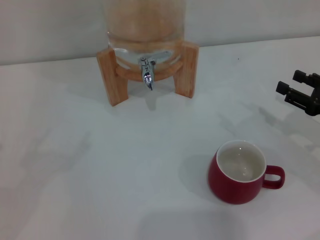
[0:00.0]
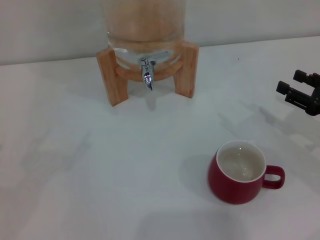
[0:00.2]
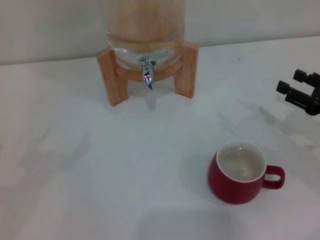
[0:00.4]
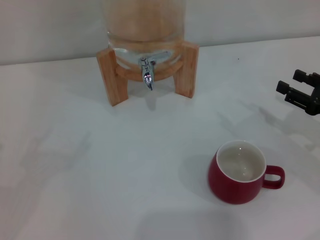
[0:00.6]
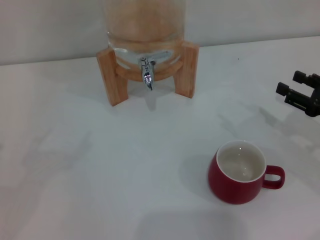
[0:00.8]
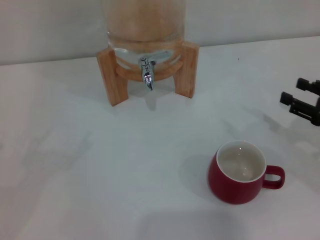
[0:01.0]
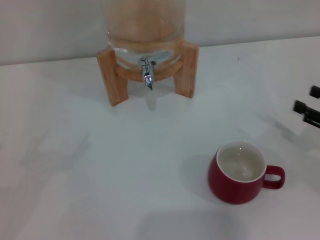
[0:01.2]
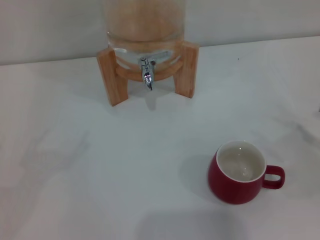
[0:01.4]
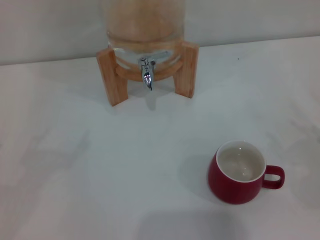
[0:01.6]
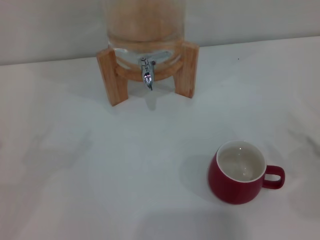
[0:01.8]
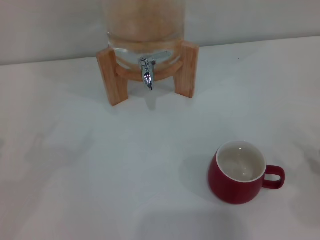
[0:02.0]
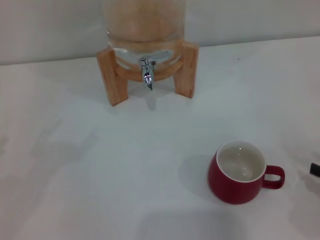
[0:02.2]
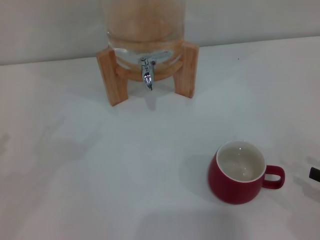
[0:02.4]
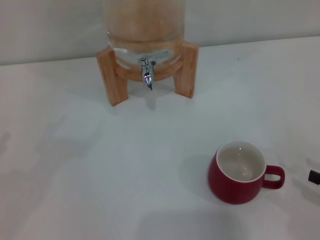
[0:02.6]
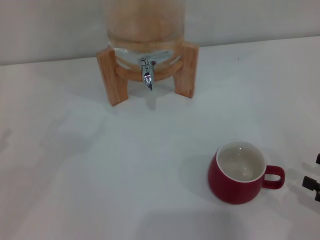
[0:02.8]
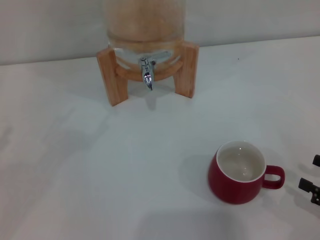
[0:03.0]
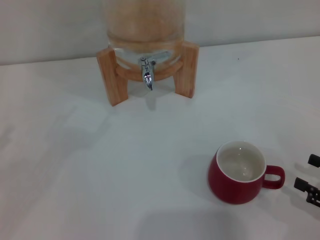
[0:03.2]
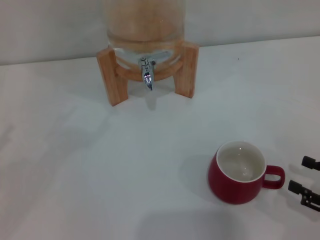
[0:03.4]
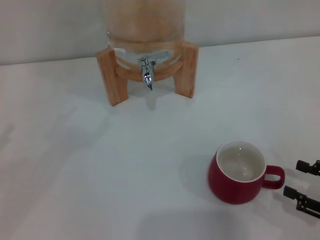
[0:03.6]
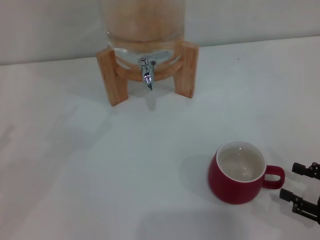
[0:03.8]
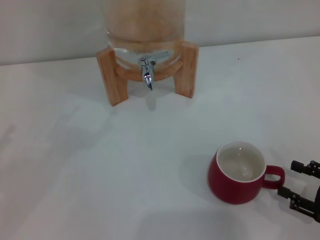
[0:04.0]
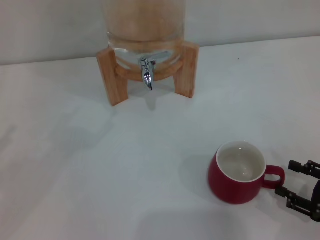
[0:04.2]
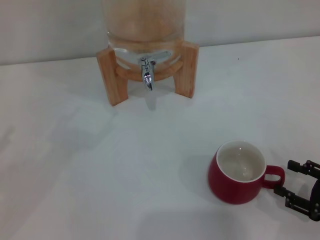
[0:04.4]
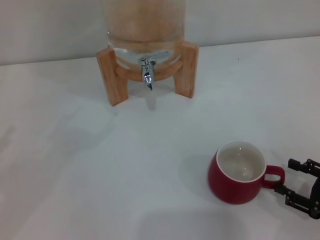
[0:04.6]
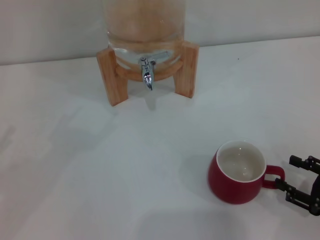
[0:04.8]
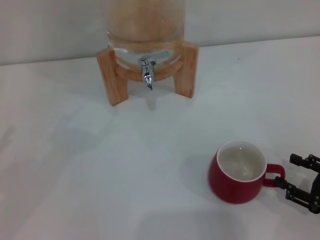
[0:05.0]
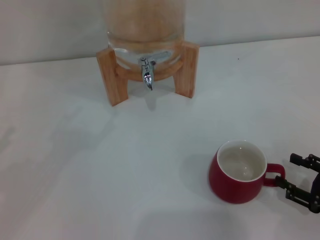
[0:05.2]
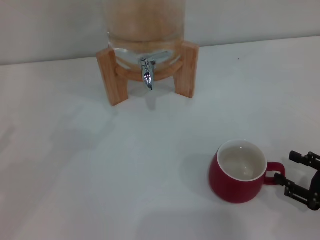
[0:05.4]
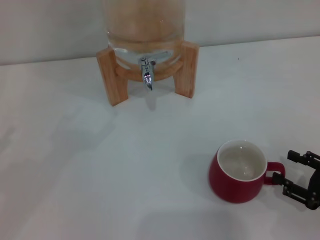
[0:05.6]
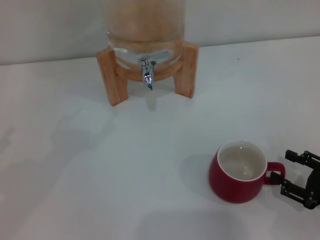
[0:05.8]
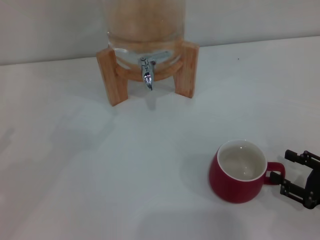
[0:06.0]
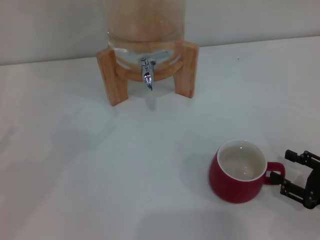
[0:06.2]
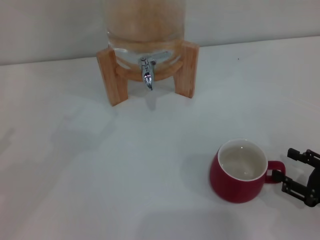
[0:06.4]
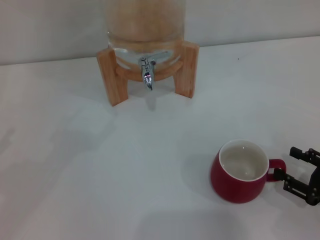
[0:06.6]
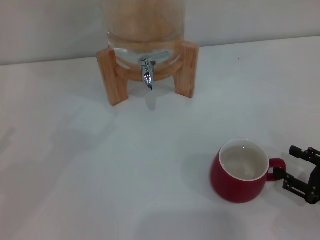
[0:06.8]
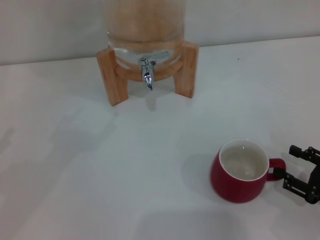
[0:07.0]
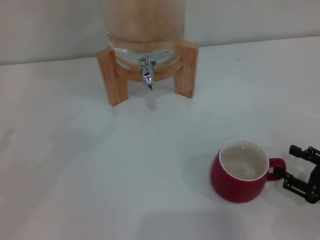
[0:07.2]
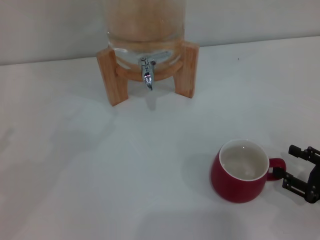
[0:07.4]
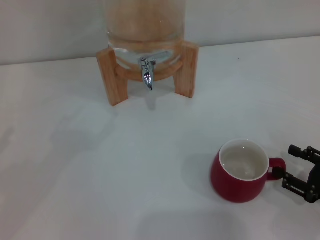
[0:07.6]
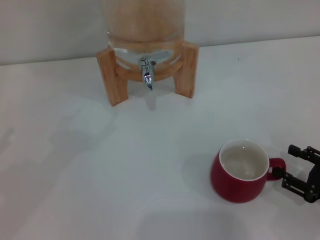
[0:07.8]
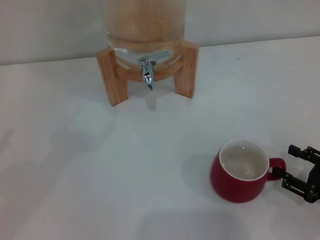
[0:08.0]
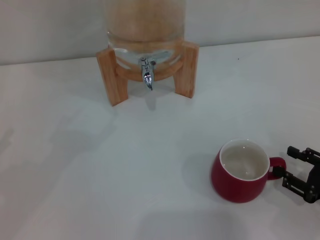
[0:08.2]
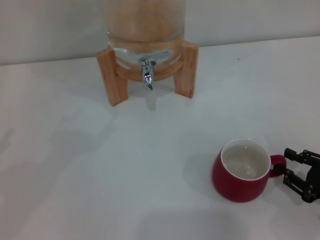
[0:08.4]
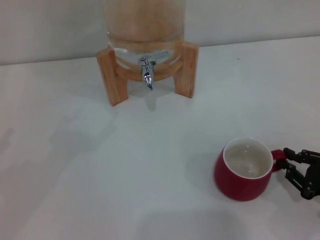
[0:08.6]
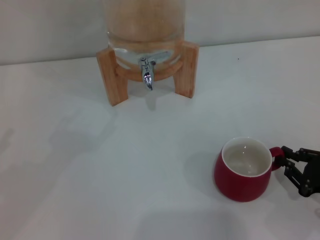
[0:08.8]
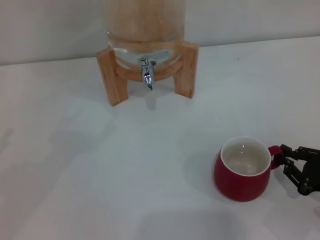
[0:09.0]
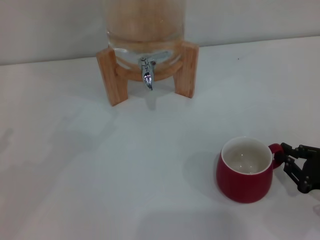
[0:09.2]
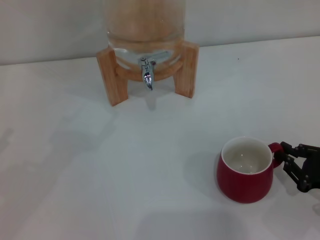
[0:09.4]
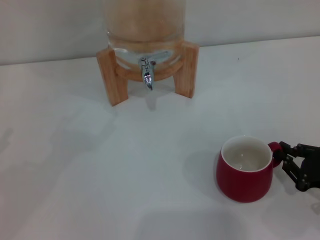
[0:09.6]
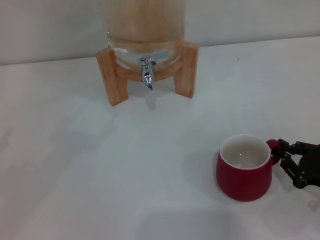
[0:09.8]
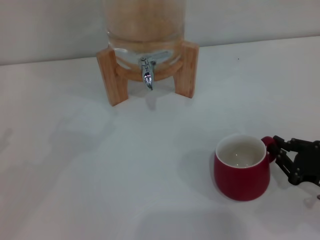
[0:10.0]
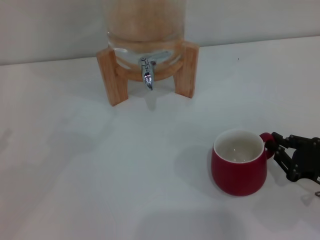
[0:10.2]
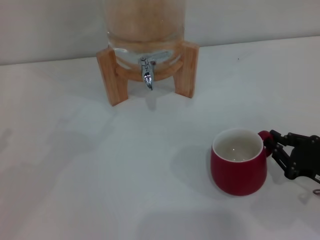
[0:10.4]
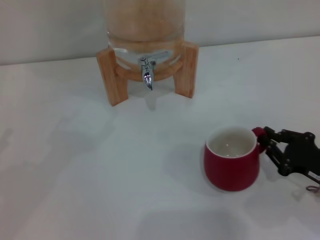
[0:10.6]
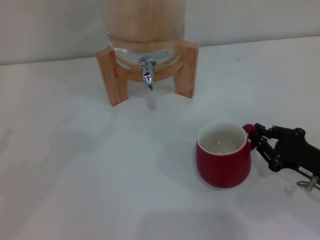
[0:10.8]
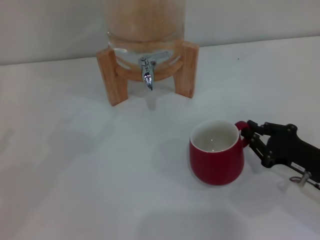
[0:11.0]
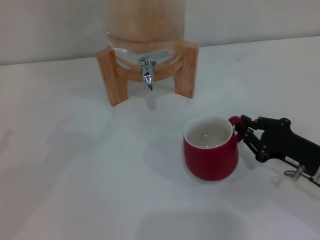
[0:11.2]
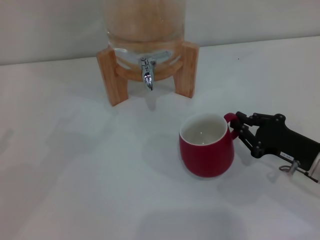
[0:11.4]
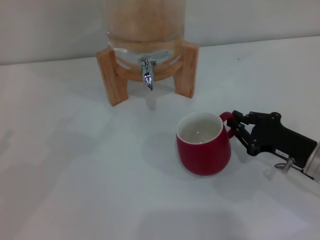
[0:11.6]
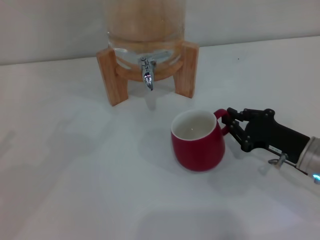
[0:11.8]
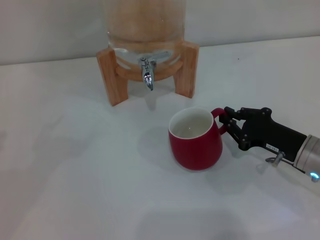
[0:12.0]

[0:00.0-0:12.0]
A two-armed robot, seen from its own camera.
Task of the whole recording: the right gripper pick up the red cup and place it horizontally under the faucet, the left gripper turn on the faucet to fill the cup, and then turn off the faucet.
0:00.0 to 0:01.6: The right gripper is displaced backward and to the right by roughly 10 cm.
0:01.6 to 0:03.0: The right gripper moves some 10 cm.
0:03.0 to 0:04.4: The grippers stay close to where they were, moving slightly.
0:04.4 to 0:06.0: Both grippers stay about where they are.
0:06.0 to 0:07.6: Neither gripper changes place.
0:07.6 to 0:09.0: The right gripper closes up.
0:09.0 to 0:10.4: The grippers move only a little.
0:10.4 to 0:12.0: The right gripper shifts roughly 10 cm forward and to the left.

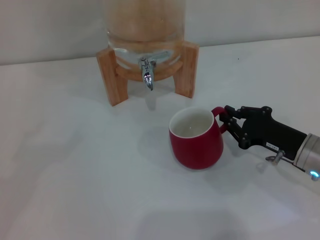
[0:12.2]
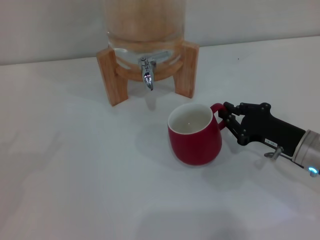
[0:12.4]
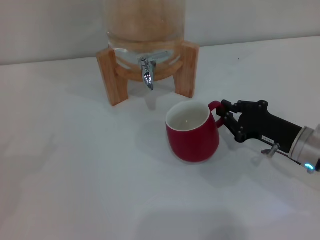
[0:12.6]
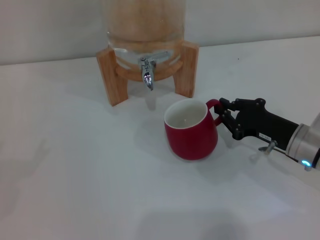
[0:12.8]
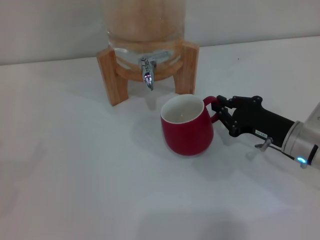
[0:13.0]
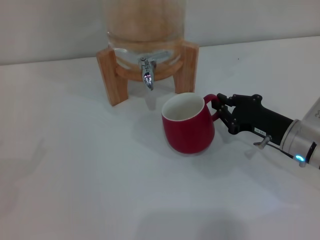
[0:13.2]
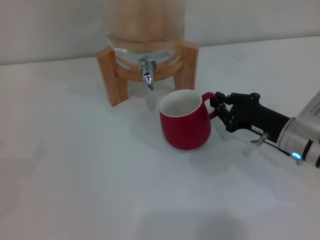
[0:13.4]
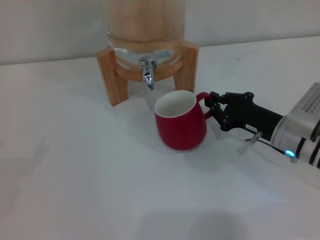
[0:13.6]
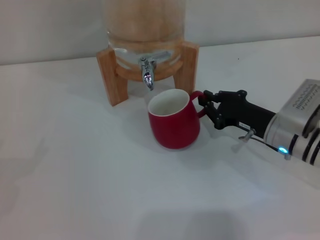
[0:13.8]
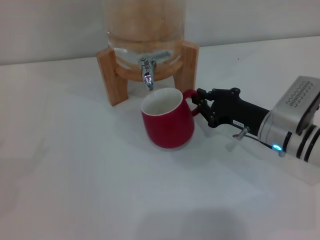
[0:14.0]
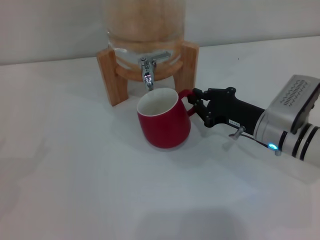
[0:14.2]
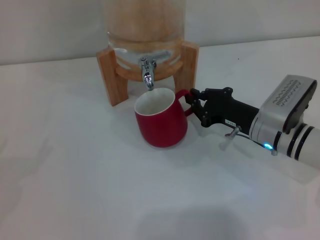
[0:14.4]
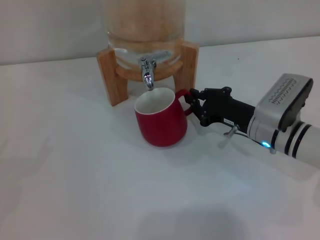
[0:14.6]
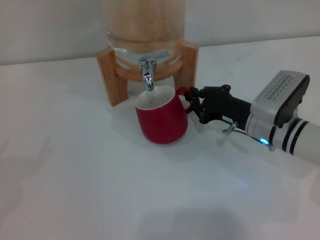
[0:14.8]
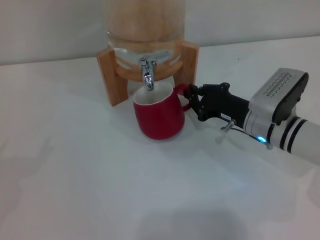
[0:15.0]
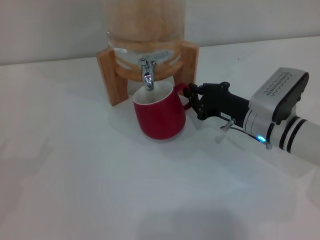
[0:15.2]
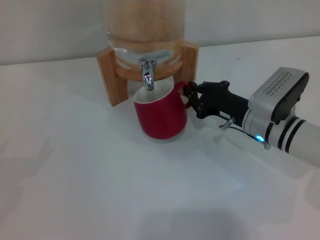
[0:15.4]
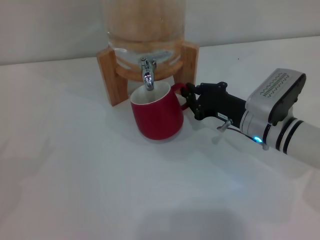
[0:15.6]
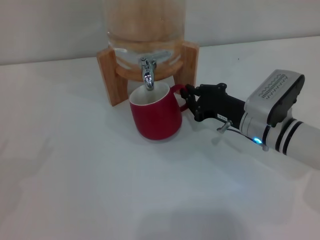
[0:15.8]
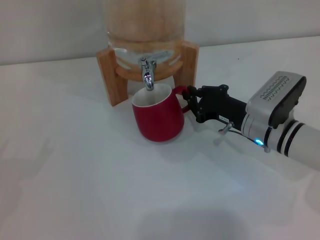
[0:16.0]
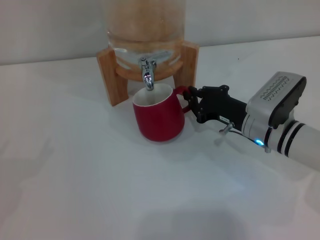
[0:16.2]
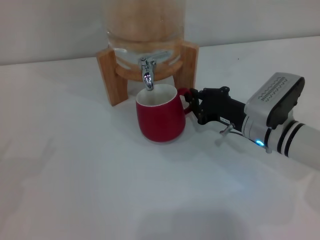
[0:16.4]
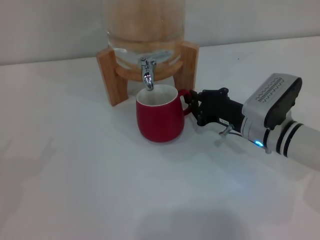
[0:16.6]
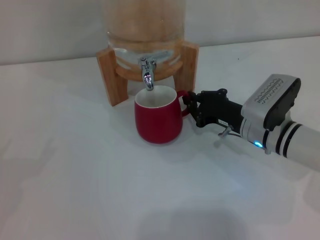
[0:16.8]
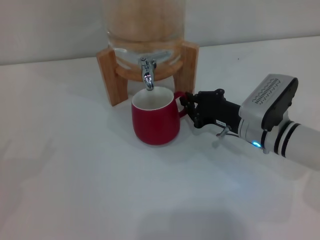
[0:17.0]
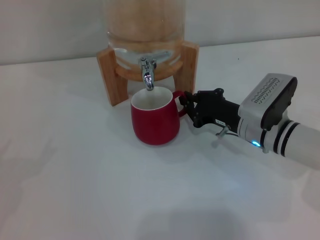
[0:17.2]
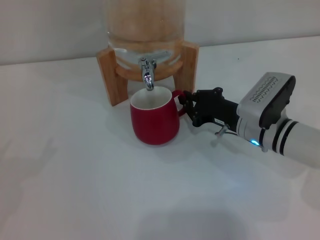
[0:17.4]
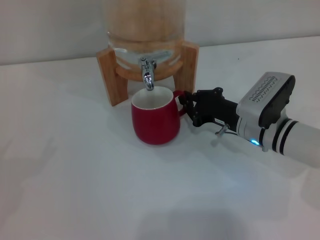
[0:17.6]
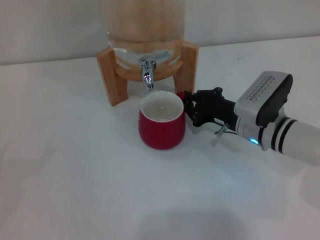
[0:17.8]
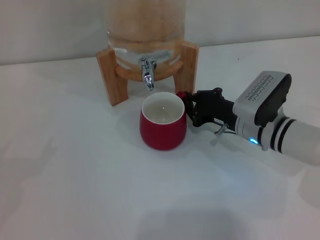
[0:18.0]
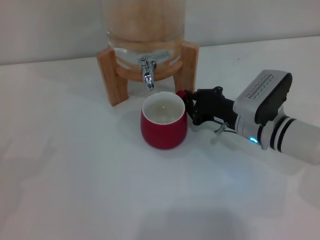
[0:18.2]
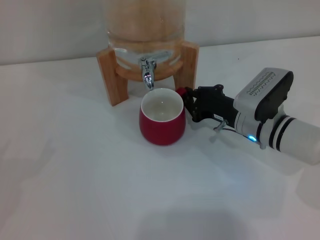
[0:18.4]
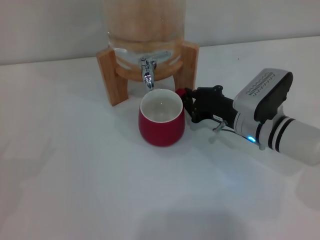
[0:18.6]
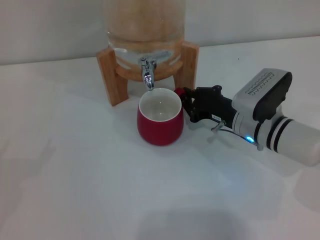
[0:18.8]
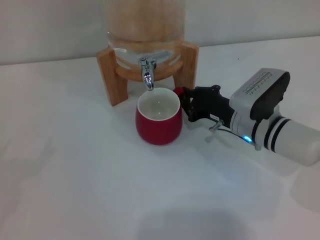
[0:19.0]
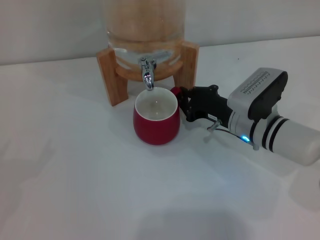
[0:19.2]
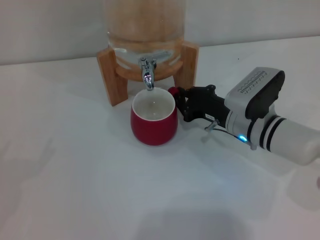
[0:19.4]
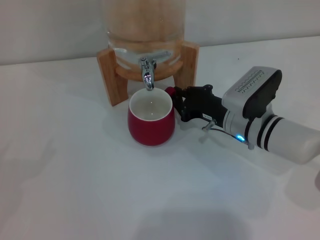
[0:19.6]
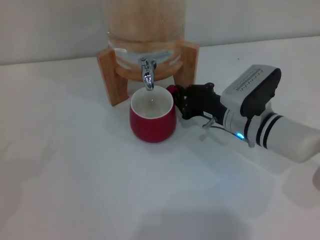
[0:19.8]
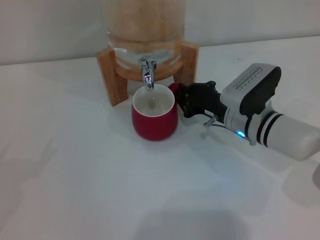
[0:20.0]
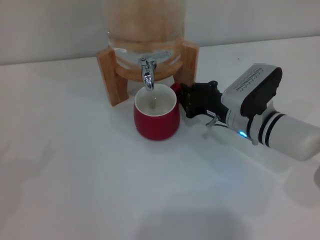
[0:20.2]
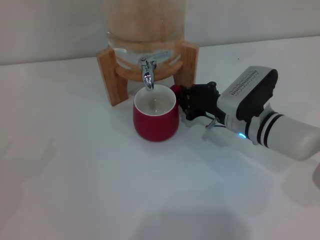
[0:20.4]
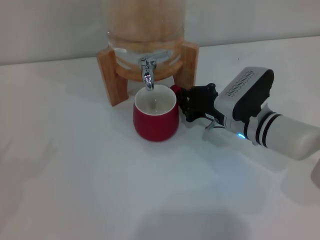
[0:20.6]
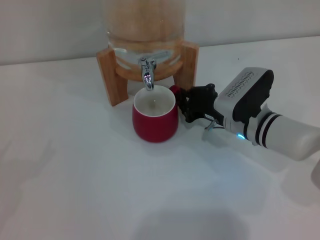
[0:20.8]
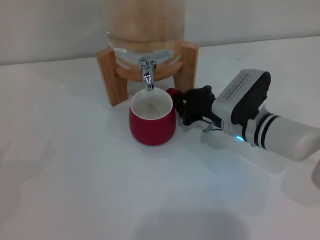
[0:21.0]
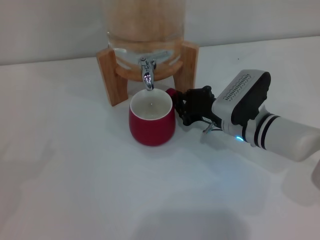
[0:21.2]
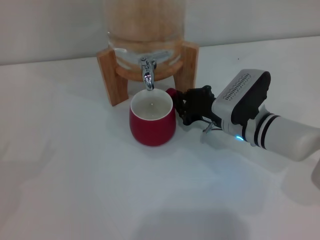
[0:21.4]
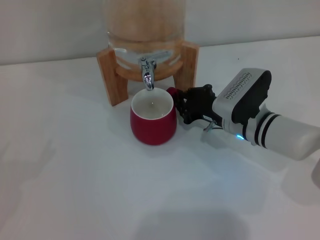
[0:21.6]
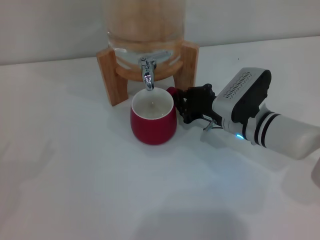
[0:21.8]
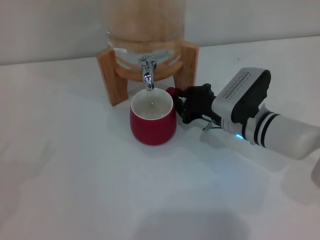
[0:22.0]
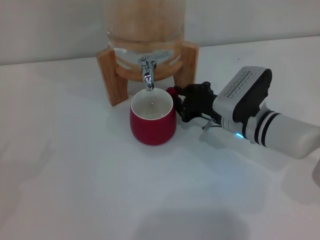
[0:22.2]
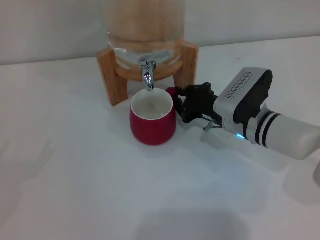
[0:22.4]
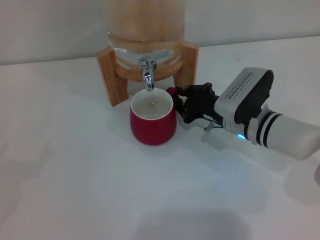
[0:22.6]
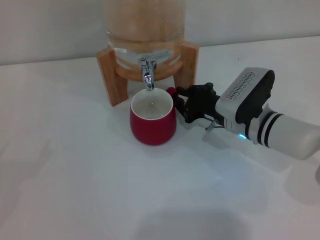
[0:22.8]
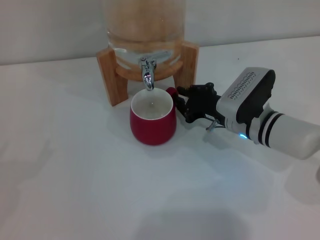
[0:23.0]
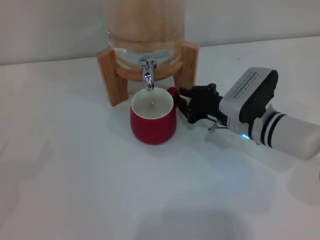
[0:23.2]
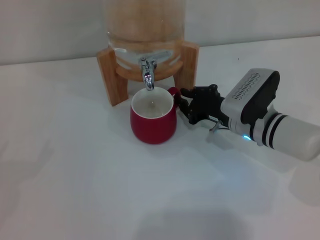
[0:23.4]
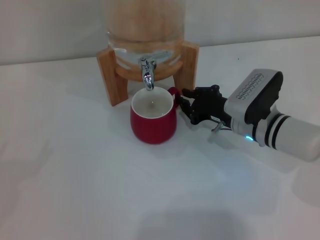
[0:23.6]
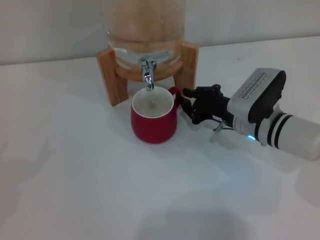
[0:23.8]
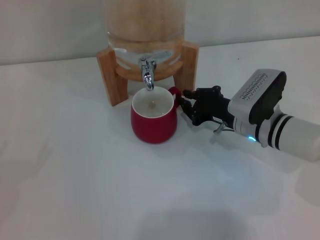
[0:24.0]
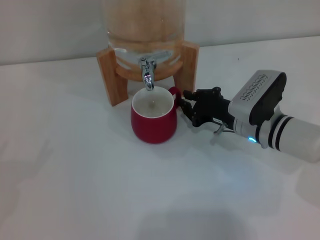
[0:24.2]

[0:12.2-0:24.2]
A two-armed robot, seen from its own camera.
Task of the whole recording: the right gripper pick up the red cup and place it horizontally under the faucet, the left gripper turn on the faucet to fill the cup, and then turn off the faucet.
0:12.2 to 0:13.8: The right gripper ends up roughly 5 cm from where it was.
0:13.8 to 0:15.2: The grippers move only a little.
0:15.2 to 0:16.6: Both grippers stay put.
0:16.6 to 0:18.2: The two grippers keep their place.
0:18.2 to 0:21.2: The grippers stay close to where they were, moving slightly.
0:21.2 to 0:22.6: Both grippers stay put.
0:22.6 to 0:24.2: There are only small adjustments of the grippers.
